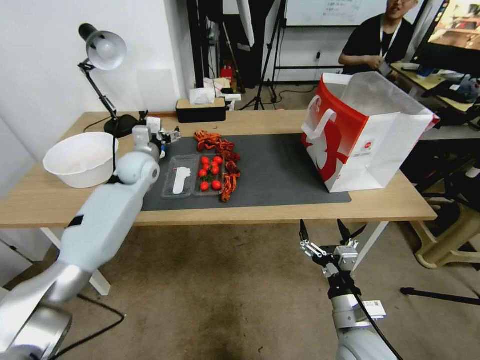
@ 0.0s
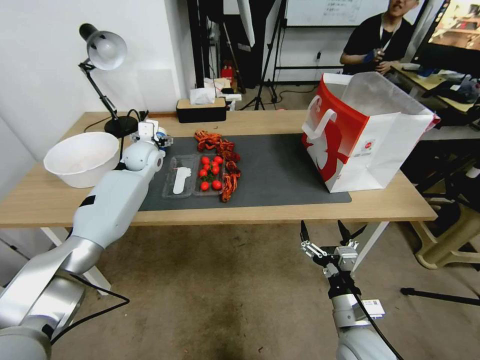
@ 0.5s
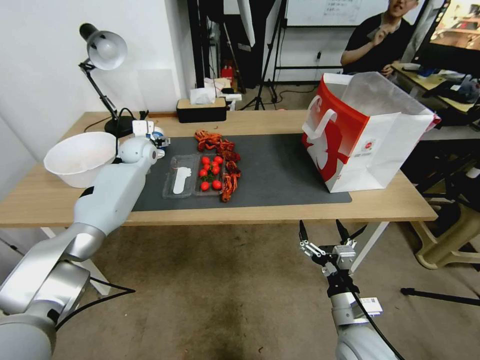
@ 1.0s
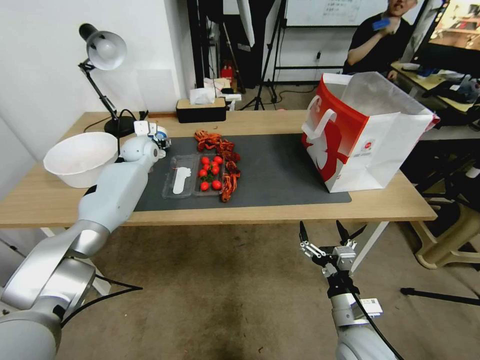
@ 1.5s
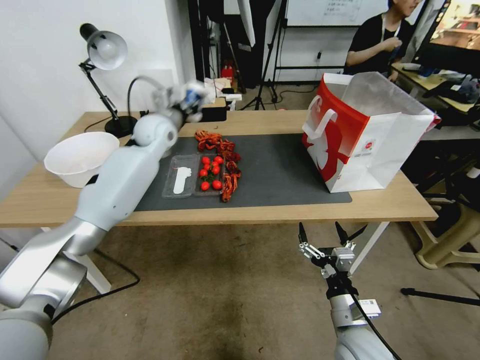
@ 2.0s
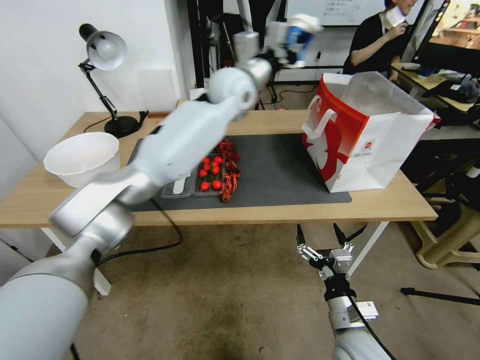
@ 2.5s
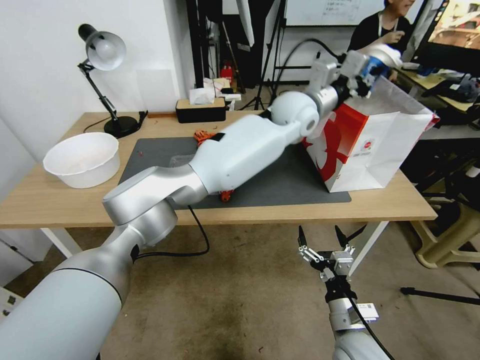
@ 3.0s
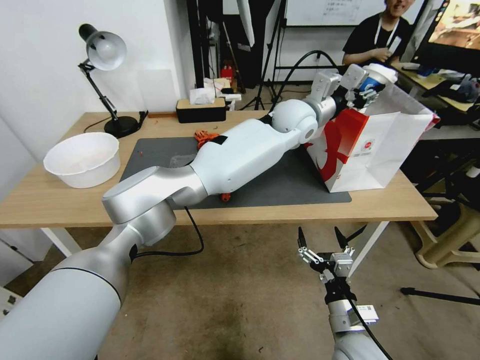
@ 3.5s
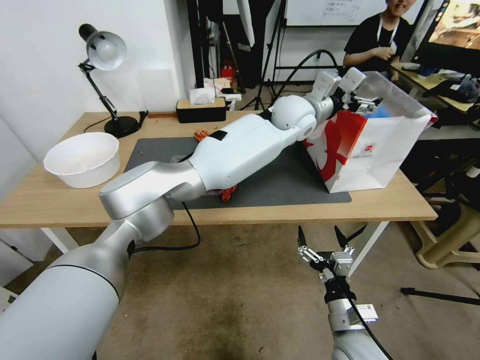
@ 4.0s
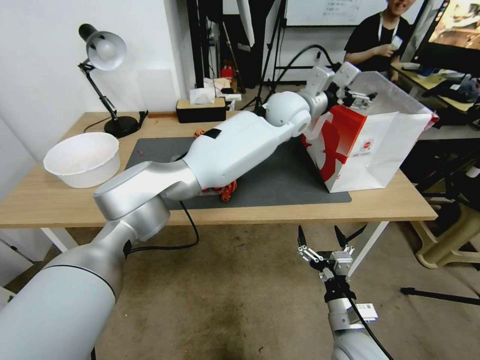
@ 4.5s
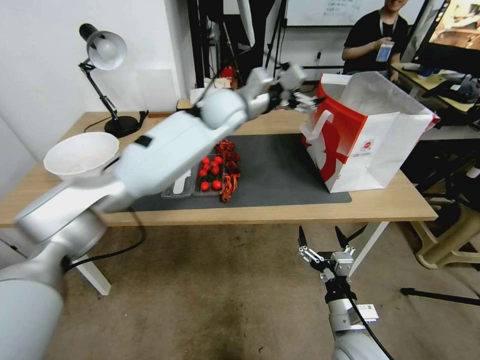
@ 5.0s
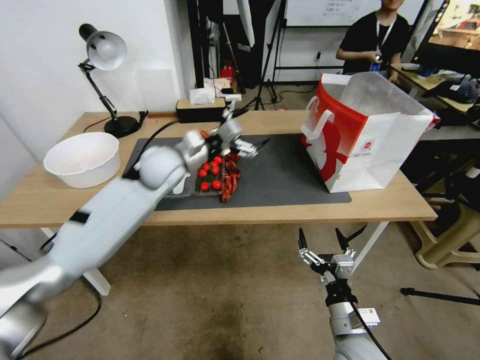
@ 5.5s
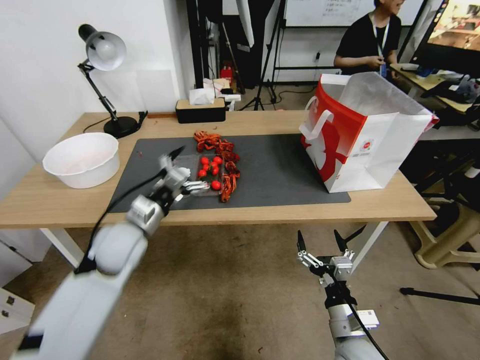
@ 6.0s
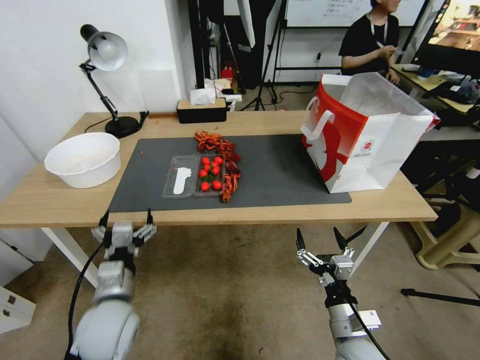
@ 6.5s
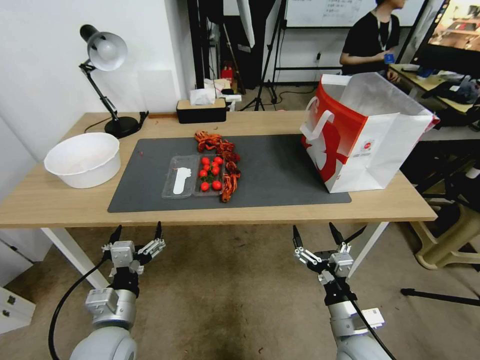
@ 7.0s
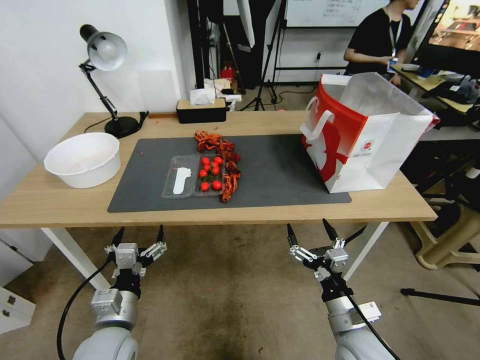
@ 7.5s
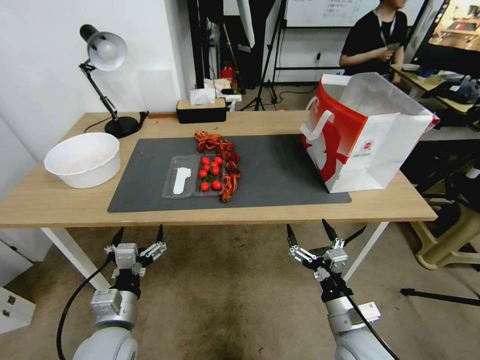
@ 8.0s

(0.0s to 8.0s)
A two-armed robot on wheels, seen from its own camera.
0.0s - 2.0s: The left gripper heads upward and to the right, covering some 10 cm, and closes up.
2.0s - 4.0s: The left gripper moves to the right, some 35 cm, and opens.
4.0s - 6.0s: The left gripper travels to the left, backward and downward by about 40 cm.
6.0s - 8.0s: The left gripper heads backward and downward, covering about 20 cm.

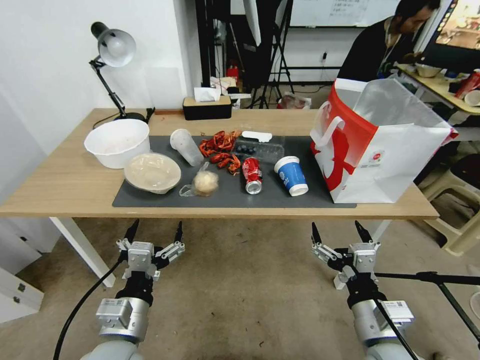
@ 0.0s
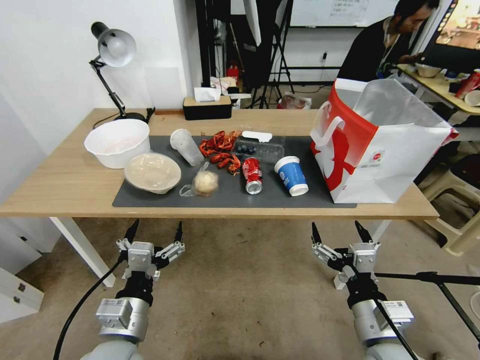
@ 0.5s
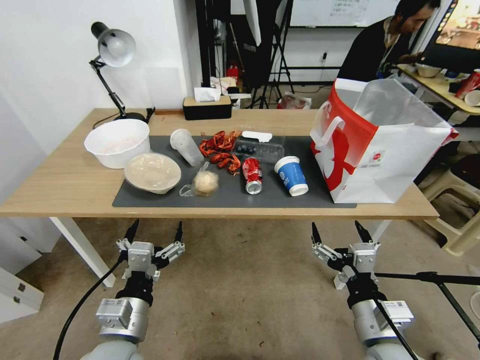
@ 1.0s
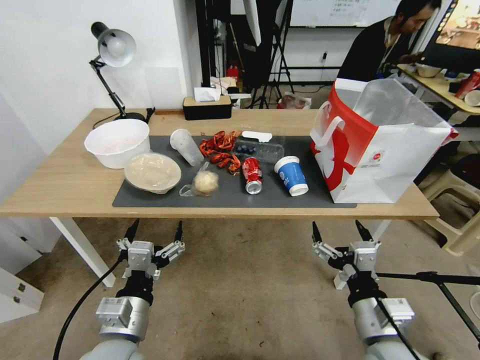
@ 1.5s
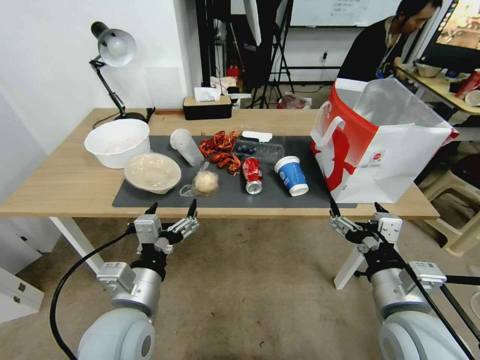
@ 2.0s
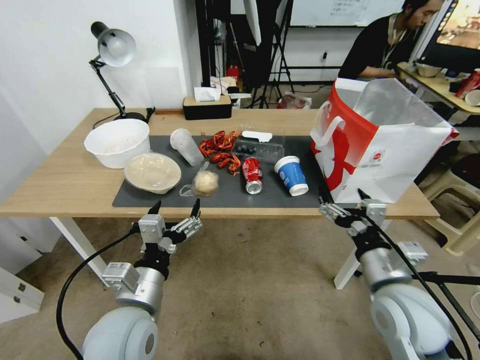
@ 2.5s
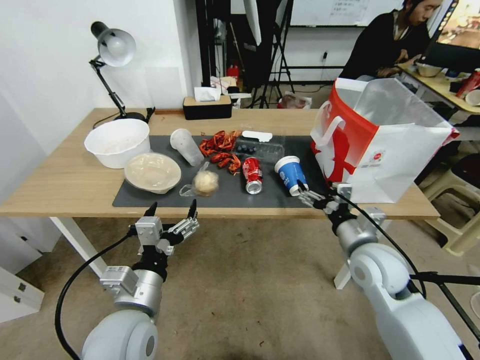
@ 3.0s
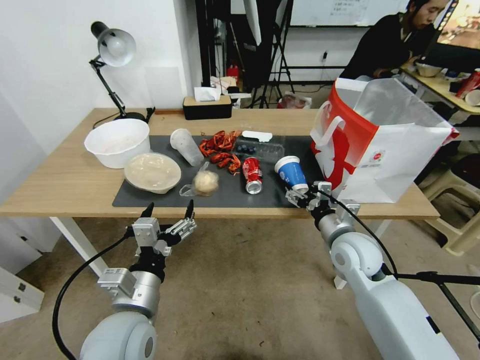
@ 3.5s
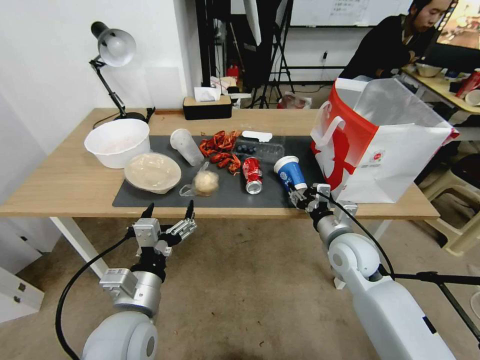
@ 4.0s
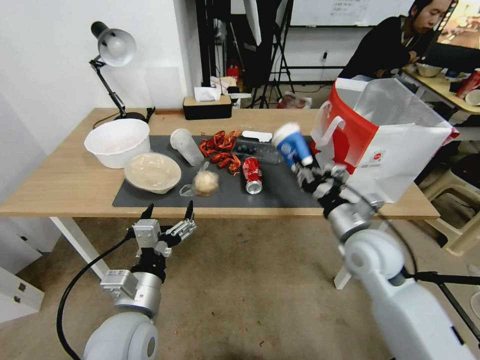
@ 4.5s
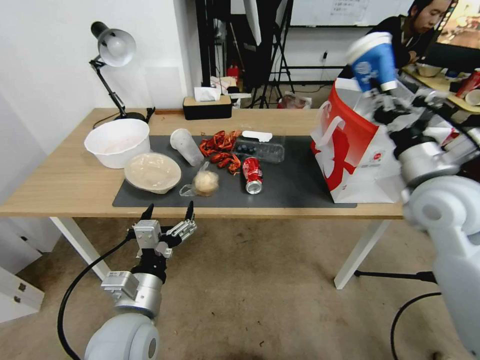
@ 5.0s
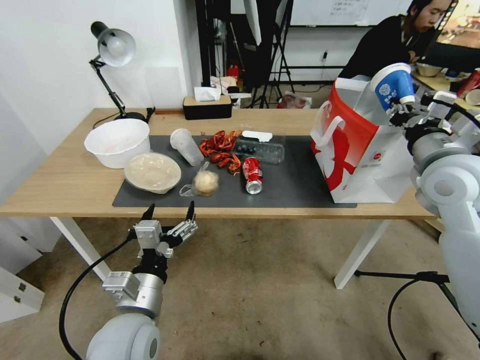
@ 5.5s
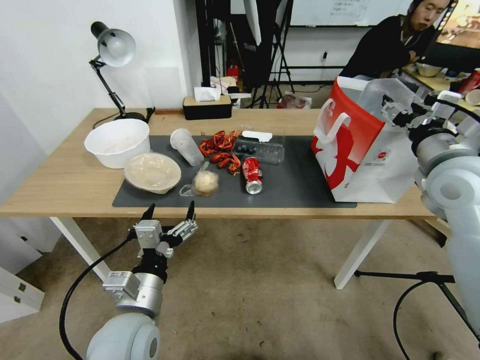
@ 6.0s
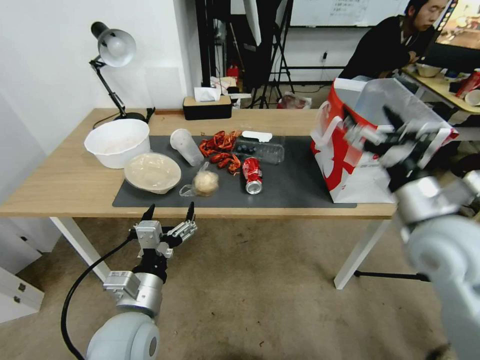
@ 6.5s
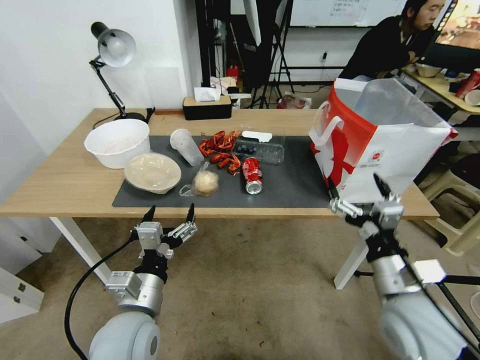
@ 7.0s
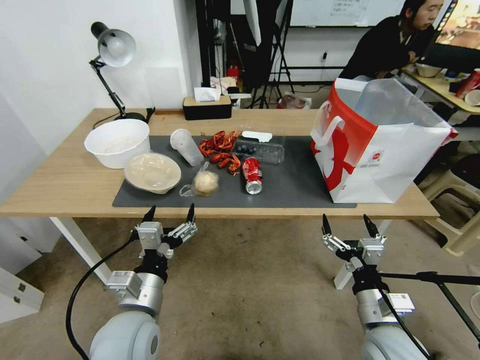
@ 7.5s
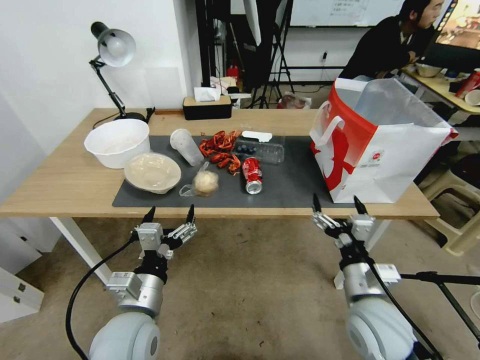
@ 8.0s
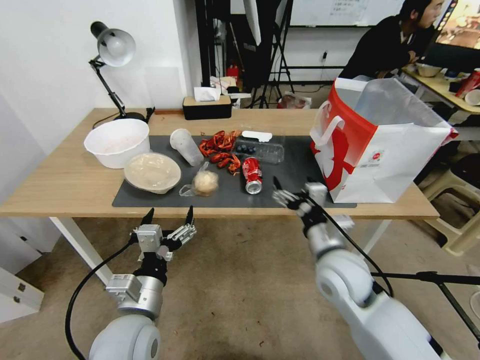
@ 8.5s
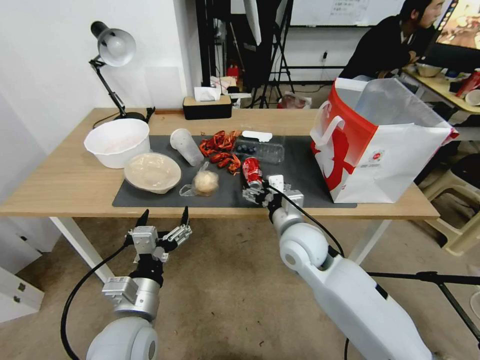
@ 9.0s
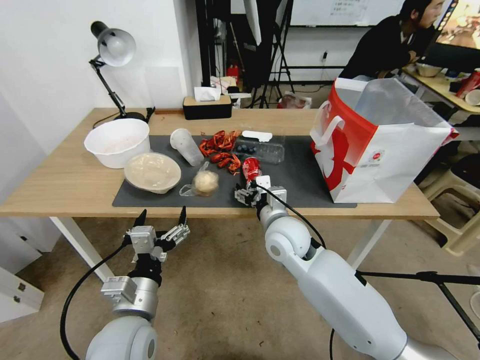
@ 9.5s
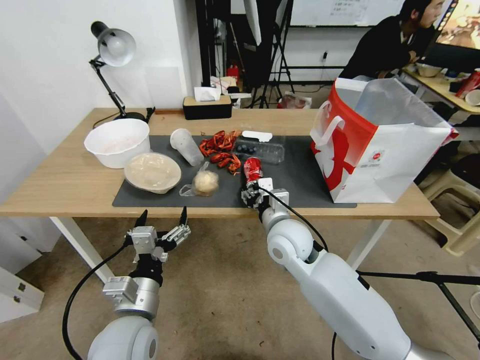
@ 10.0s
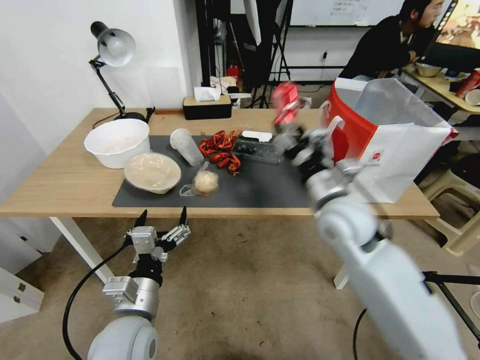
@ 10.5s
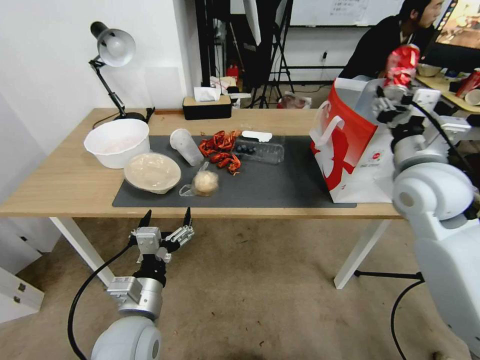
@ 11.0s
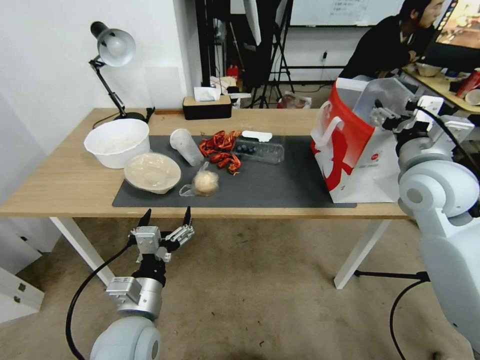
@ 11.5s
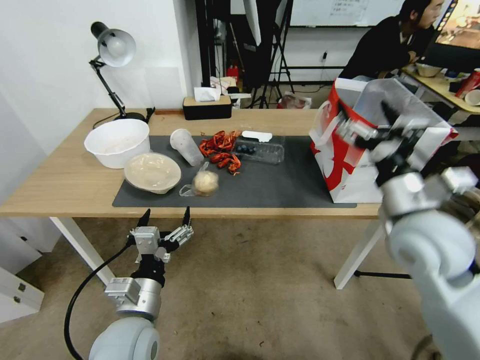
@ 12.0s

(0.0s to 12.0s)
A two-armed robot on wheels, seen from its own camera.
2.0s - 4.0s: The right gripper moves forward and downward, roughly 20 cm, and closes up.
4.0s - 6.0s: The right gripper heads upward and to the right, covering about 25 cm, and closes, then opens again.
6.0s - 8.0s: The right gripper travels downward, backward and to the left by about 30 cm.
8.0s - 10.0s: The right gripper is displaced forward and to the left by some 20 cm, and closes up.
10.0s - 12.0s: The right gripper is displaced to the right and upward by some 25 cm, and opens its fingers.

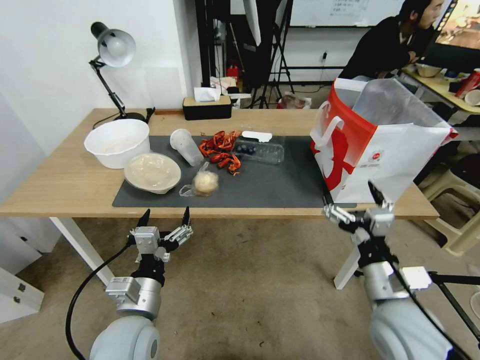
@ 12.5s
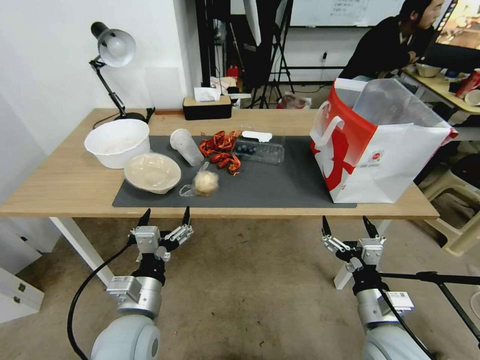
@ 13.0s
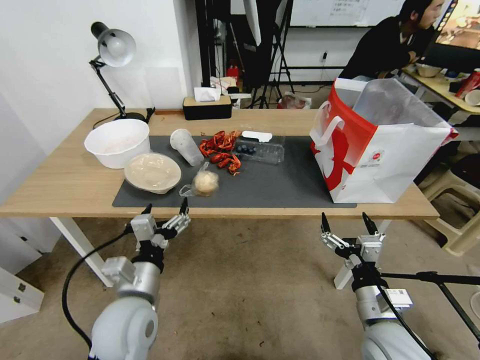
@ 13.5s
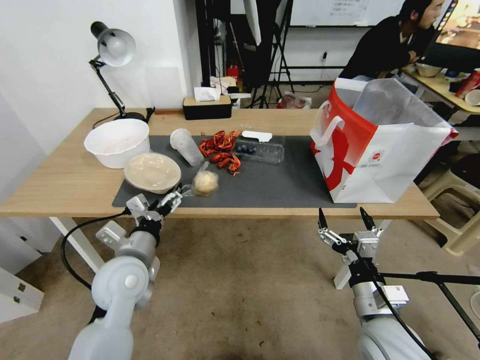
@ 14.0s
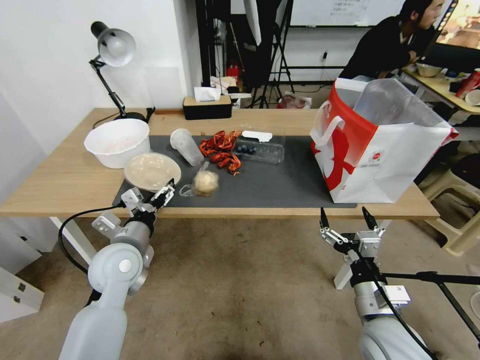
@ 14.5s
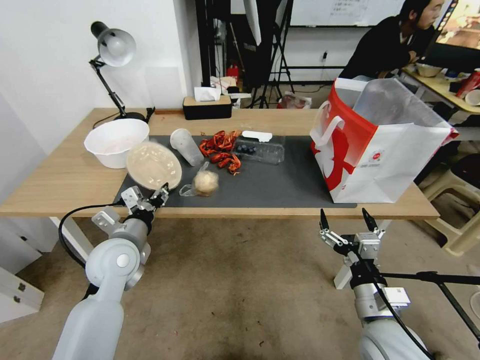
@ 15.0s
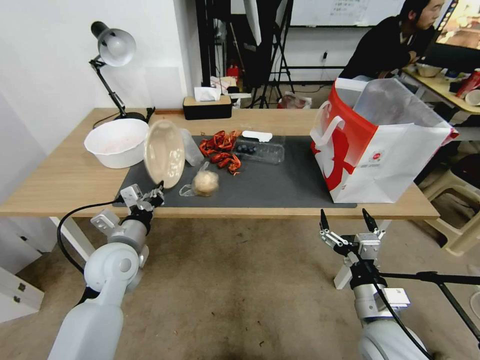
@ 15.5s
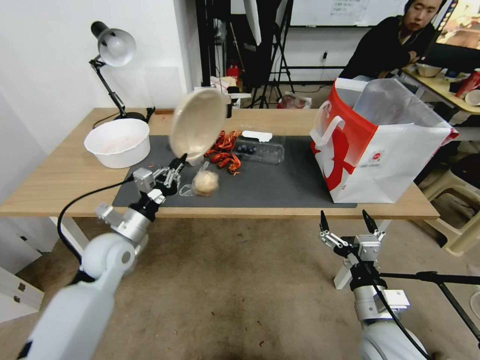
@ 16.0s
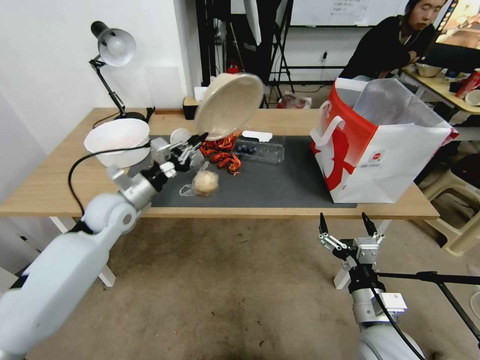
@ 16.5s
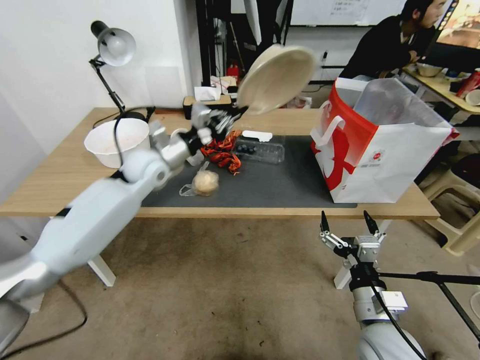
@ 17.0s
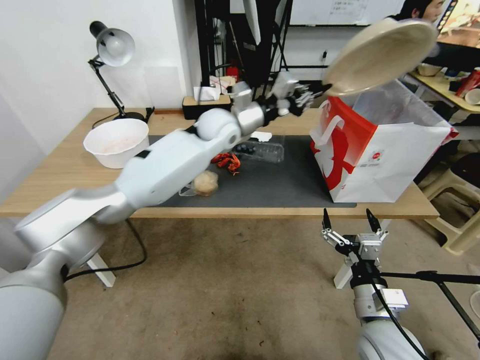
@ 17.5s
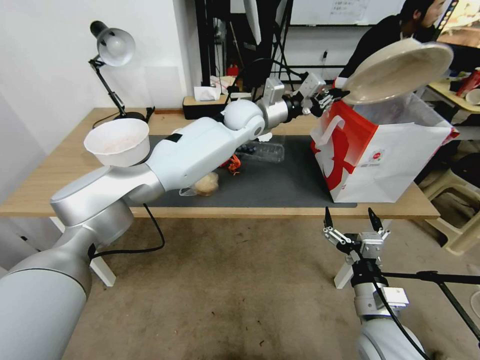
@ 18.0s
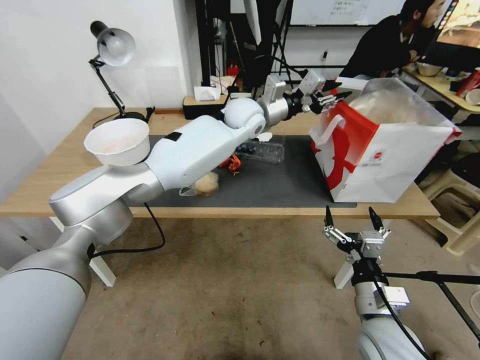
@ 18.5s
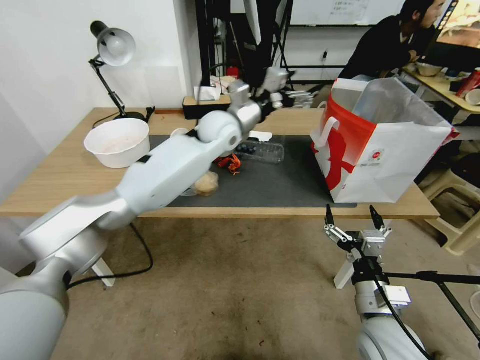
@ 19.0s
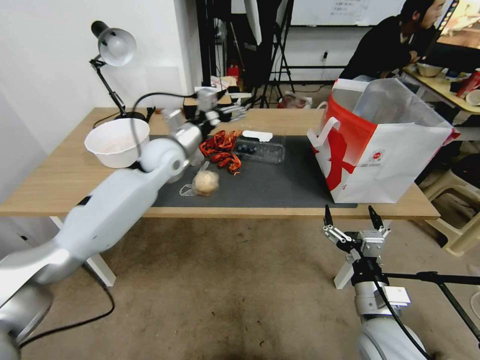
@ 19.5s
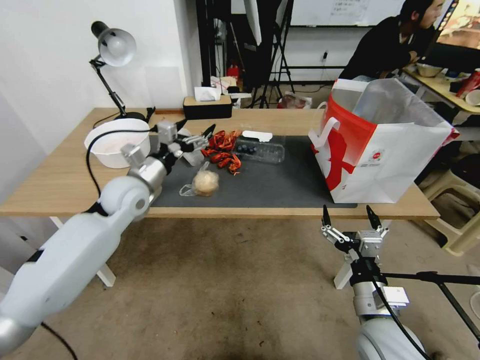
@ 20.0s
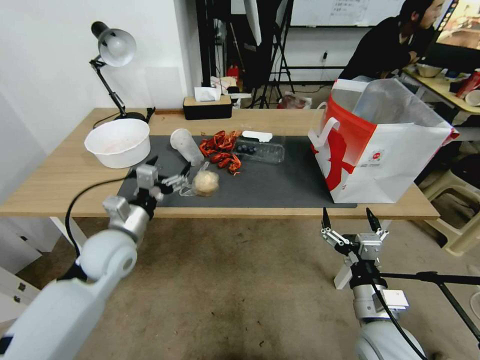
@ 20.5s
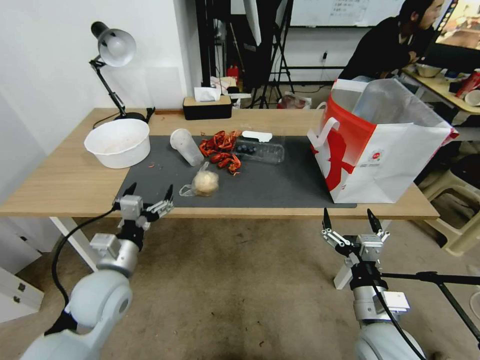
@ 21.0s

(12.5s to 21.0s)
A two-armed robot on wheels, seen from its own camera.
12.5s - 14.5s: The right gripper shifts approximately 5 cm downward. The left gripper shifts roughly 15 cm forward and to the left.
14.5s - 16.5s: The left gripper travels forward by roughly 10 cm, and closes.
16.5s - 19.0s: The left gripper is displaced to the right, forward and upward by roughly 30 cm, and opens.
19.0s - 21.0s: The left gripper travels backward, to the left and downward by approximately 40 cm.
